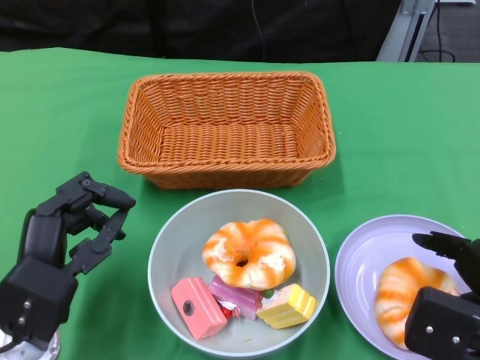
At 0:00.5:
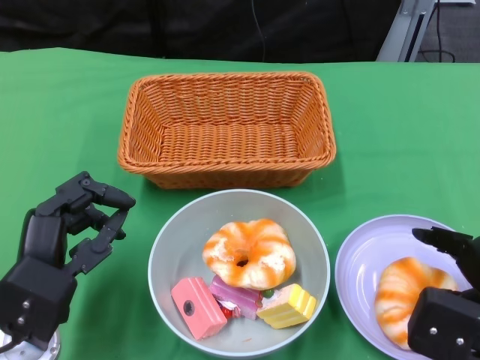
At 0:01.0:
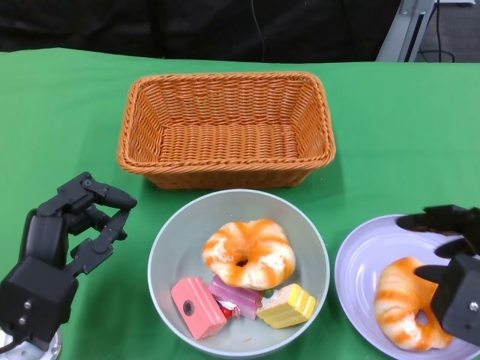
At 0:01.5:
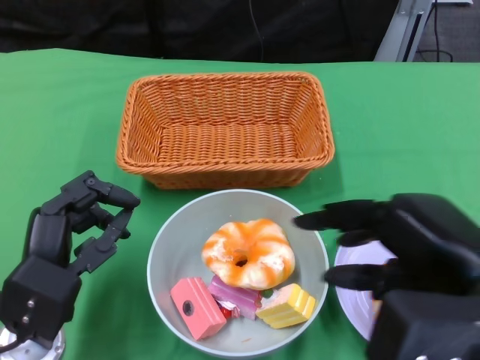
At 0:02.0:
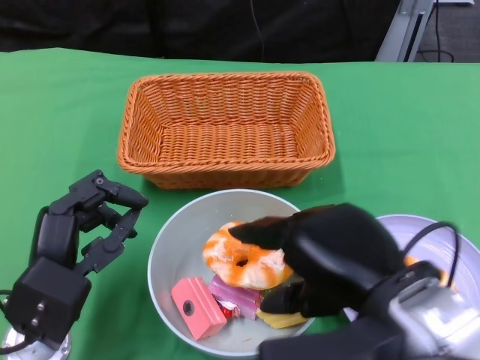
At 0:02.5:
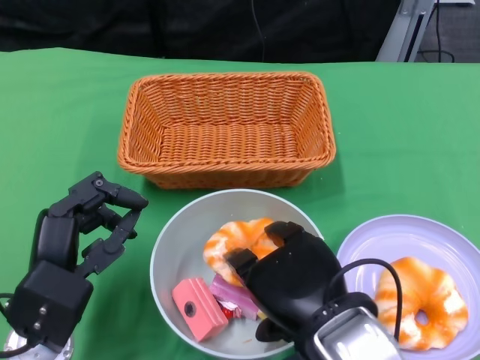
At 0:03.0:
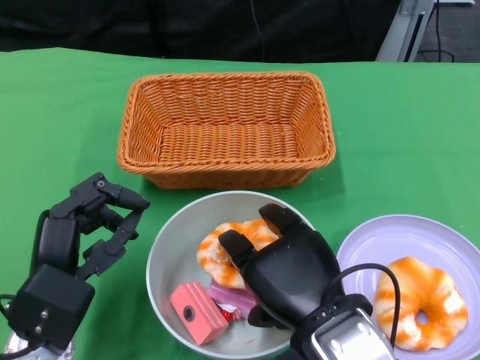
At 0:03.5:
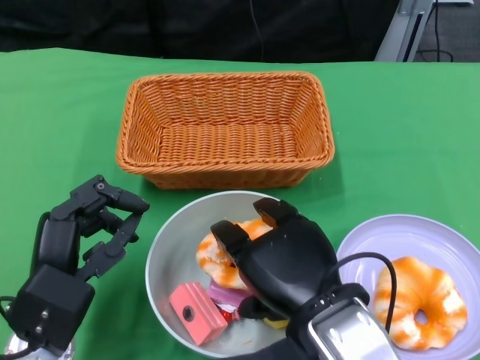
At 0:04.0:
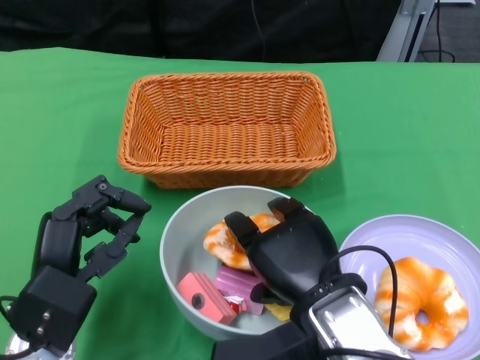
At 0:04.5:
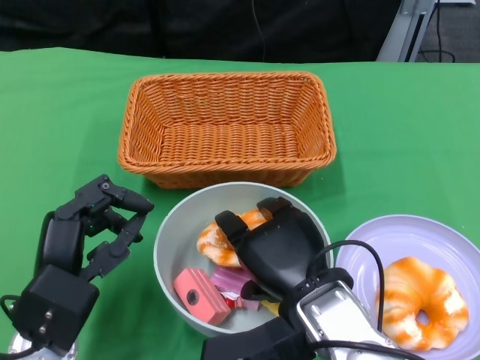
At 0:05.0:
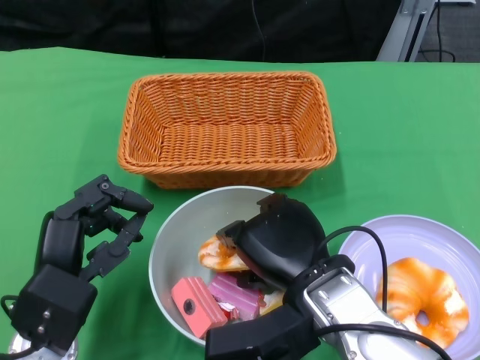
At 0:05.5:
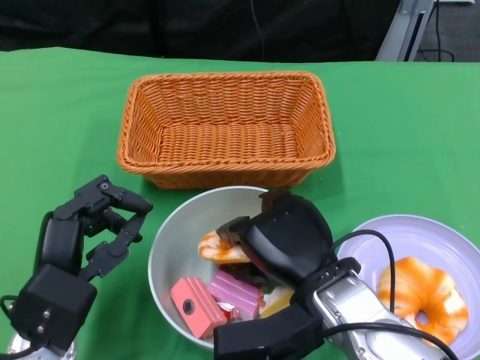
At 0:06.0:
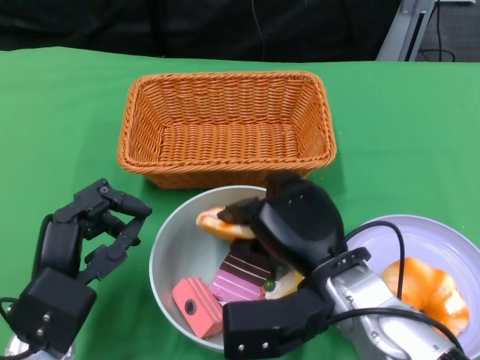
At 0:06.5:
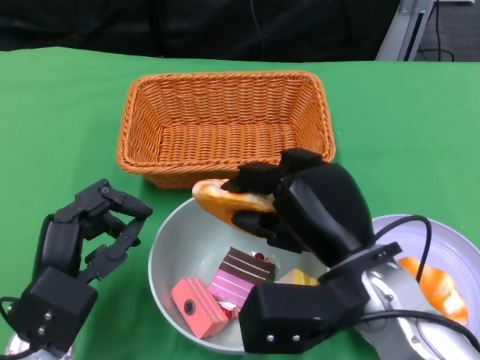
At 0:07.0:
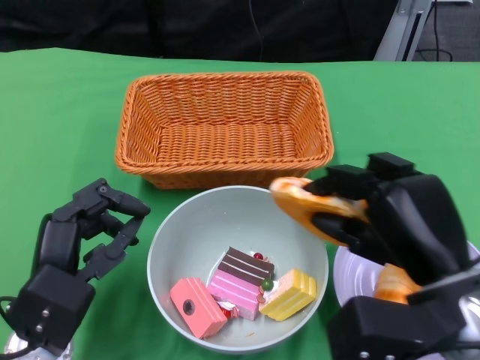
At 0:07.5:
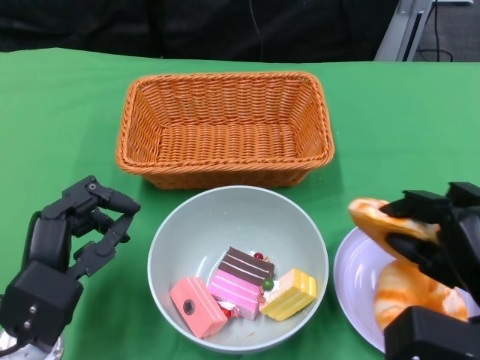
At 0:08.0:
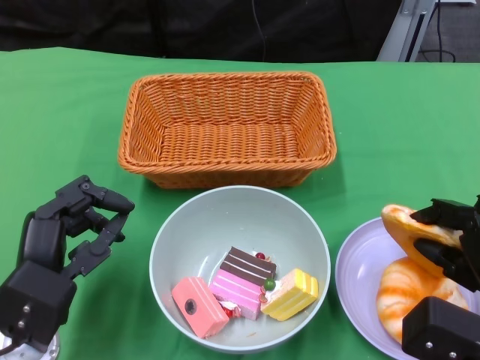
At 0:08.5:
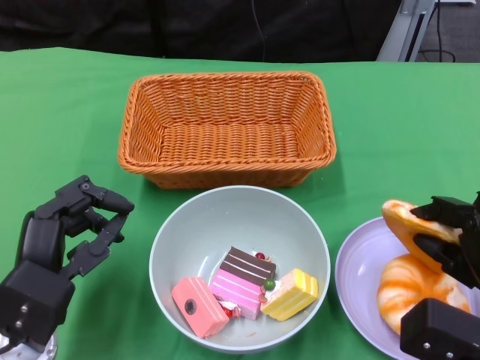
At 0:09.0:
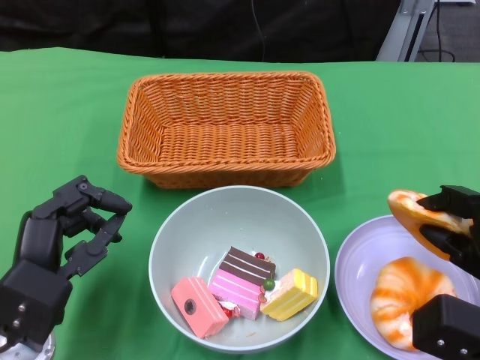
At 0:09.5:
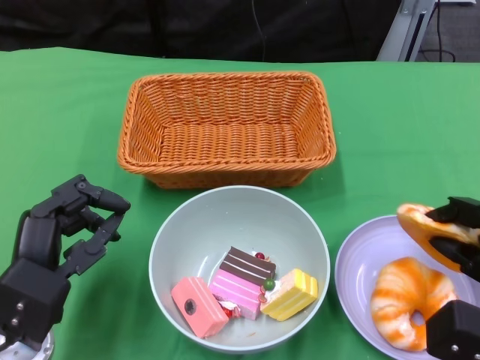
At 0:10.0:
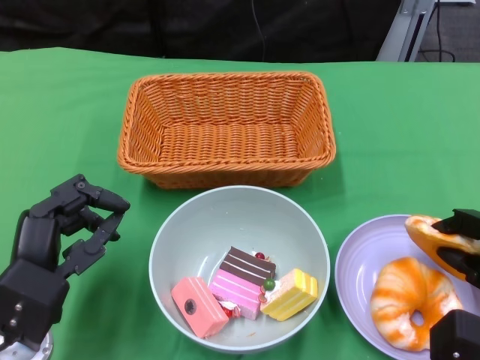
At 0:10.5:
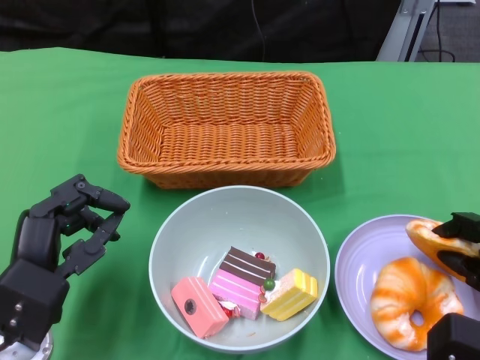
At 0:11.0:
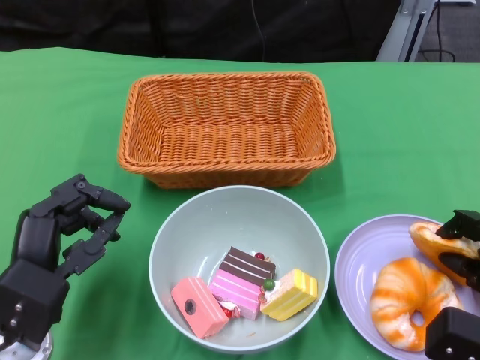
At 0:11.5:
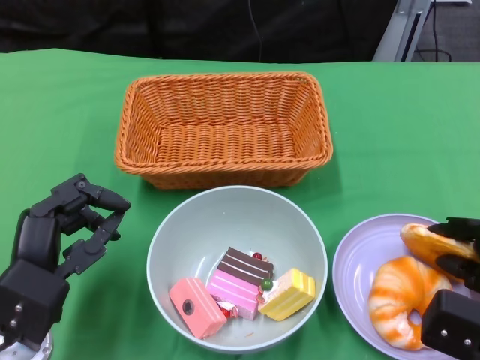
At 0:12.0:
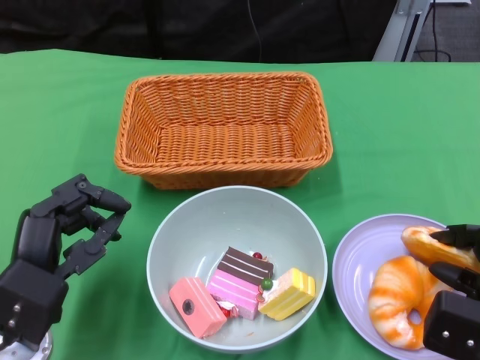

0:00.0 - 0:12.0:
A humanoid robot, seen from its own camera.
0:00.0 - 0:02.0: The right hand moves to the left and upward, approximately 15 cm.
0:02.0 - 0:04.0: The right hand goes about 10 cm downward and to the left.
0:06.0 - 0:08.0: The right hand is displaced to the right by roughly 15 cm.
0:08.0 - 0:12.0: The hands stay close to where they were, moving slightly.

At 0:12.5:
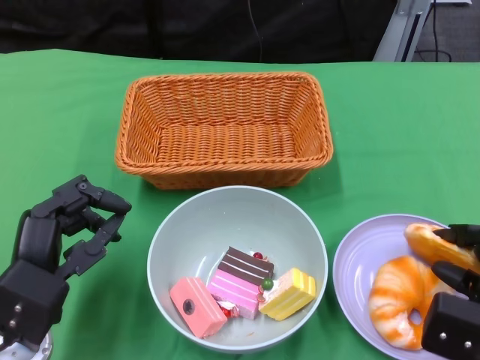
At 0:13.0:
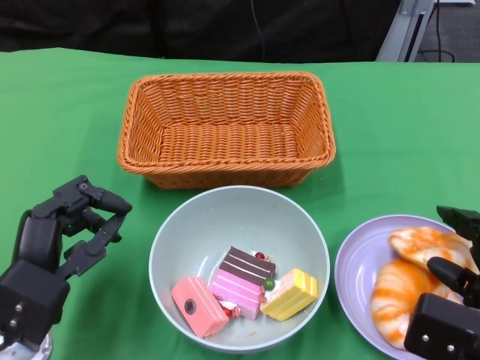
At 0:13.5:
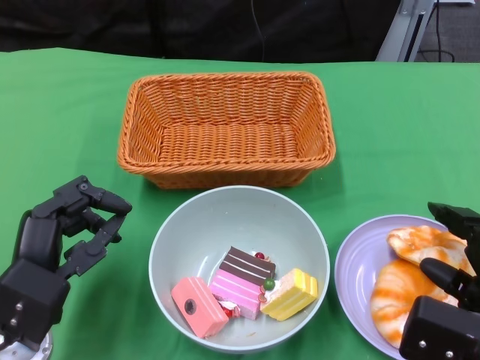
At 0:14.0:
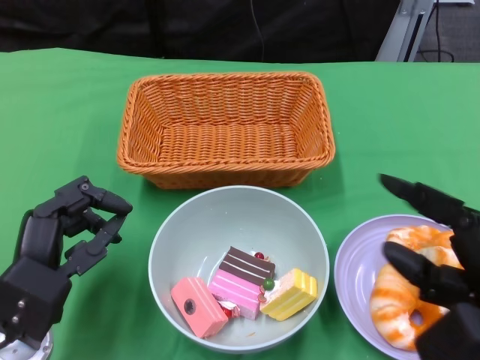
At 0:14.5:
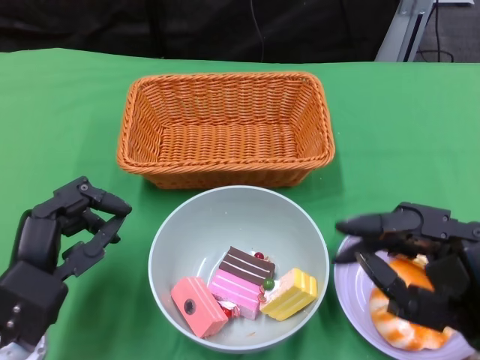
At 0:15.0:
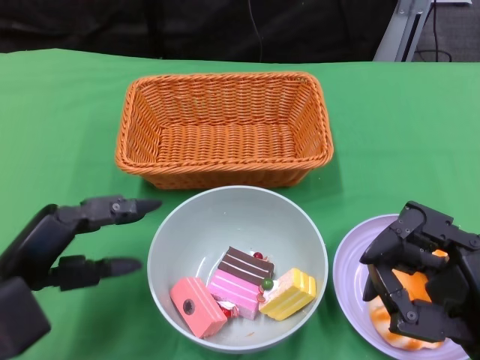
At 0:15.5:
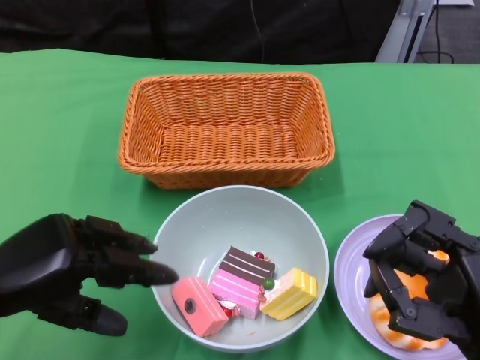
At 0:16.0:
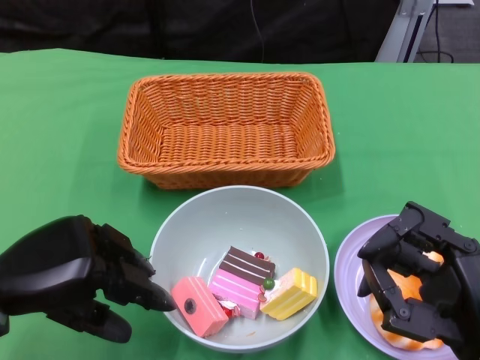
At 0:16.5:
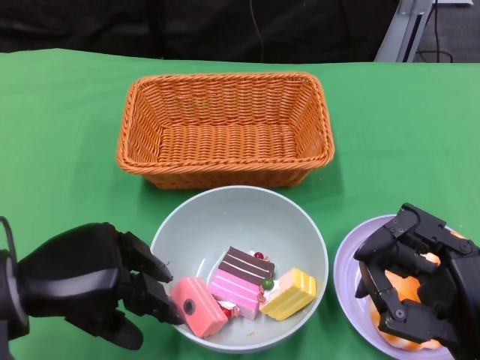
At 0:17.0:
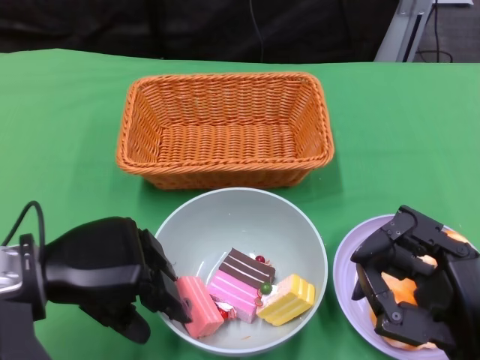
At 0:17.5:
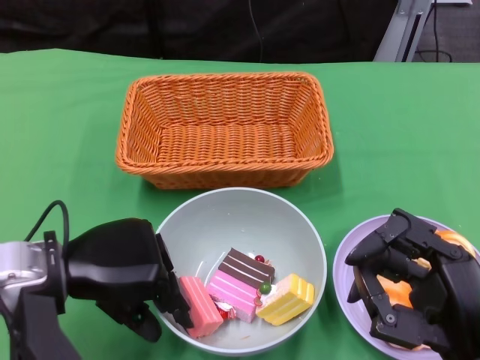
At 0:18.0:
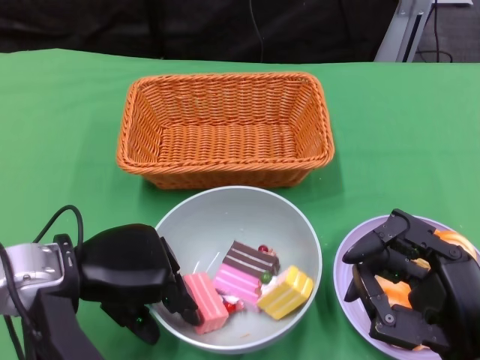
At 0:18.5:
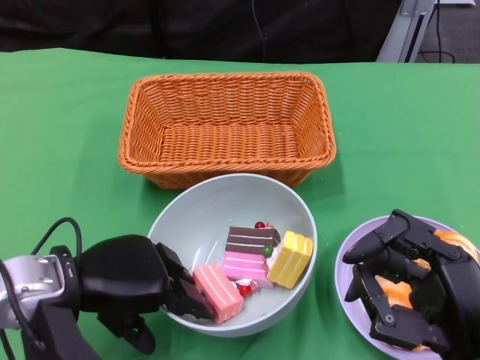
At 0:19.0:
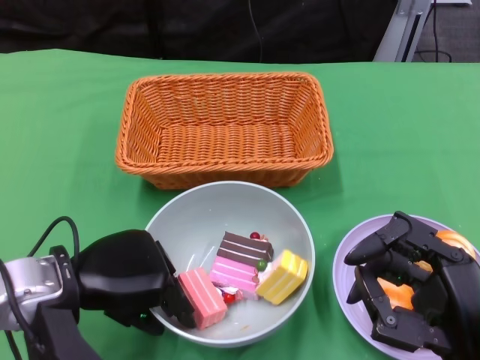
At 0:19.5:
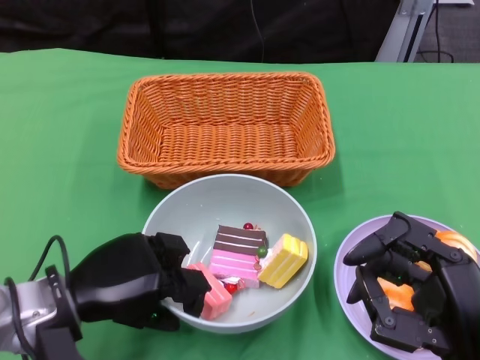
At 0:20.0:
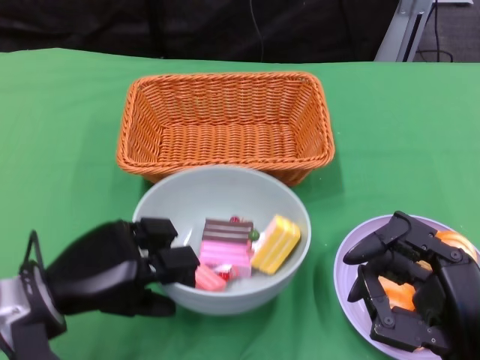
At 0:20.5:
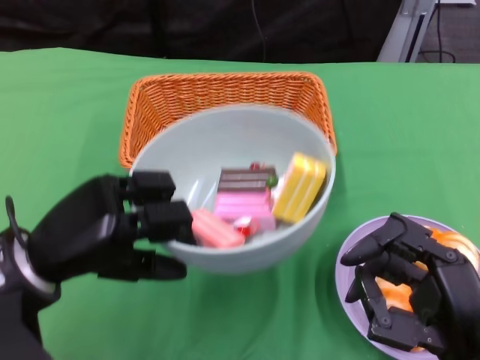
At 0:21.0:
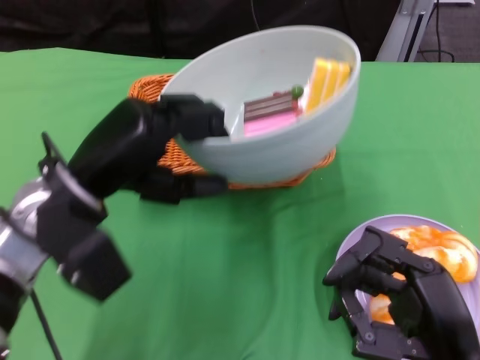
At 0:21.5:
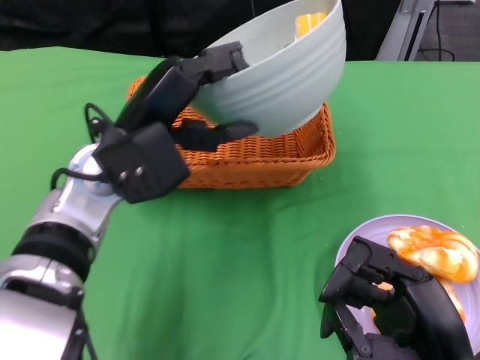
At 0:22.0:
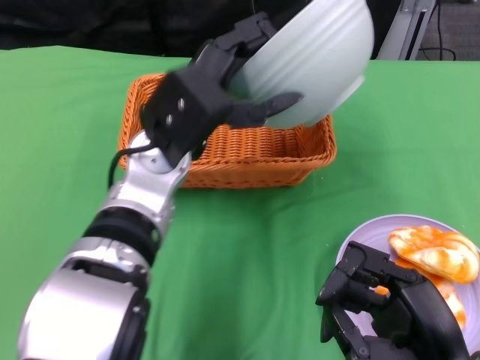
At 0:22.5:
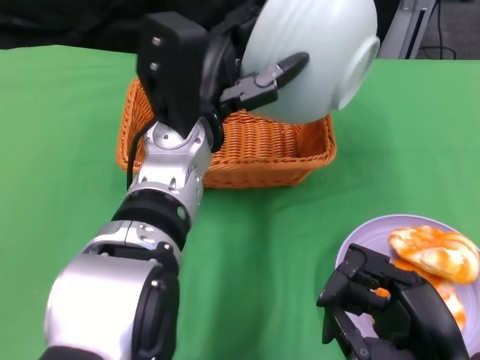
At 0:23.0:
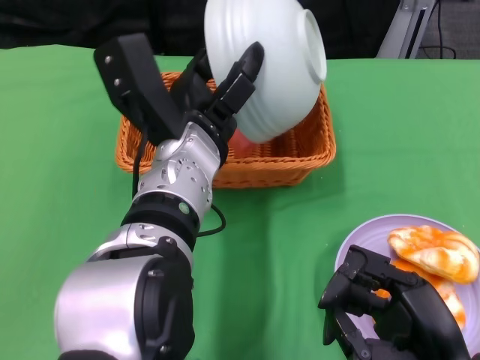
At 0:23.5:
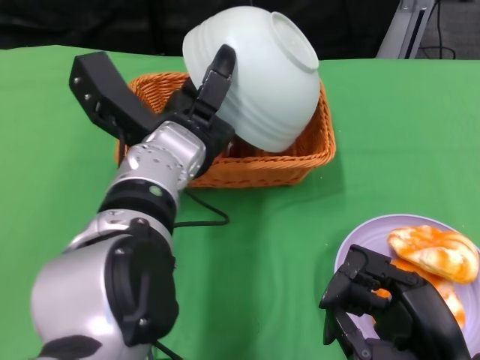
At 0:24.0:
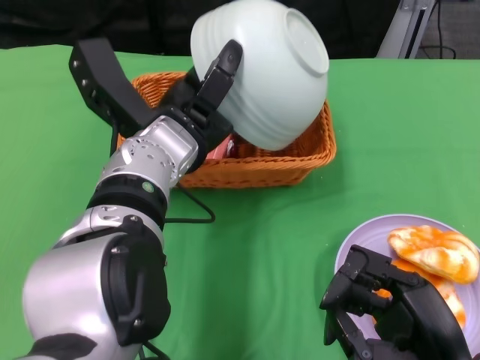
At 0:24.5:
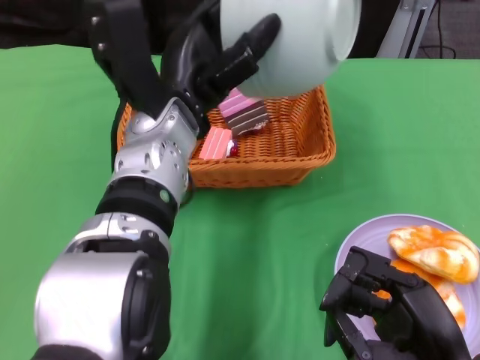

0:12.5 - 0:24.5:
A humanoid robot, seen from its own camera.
Step, 0:14.5 - 0:18.5: Grasp the bowl with the left gripper.
Step, 0:19.0 - 0:24.0: Pour the cake into the basket with the left gripper.
0:12.5 - 0:14.5: The right hand is displaced to the left and upward by roughly 10 cm.
0:14.5 - 0:16.5: The left hand is displaced upward by about 5 cm.
0:20.5 - 0:22.5: The left hand goes approximately 20 cm to the right and forward.

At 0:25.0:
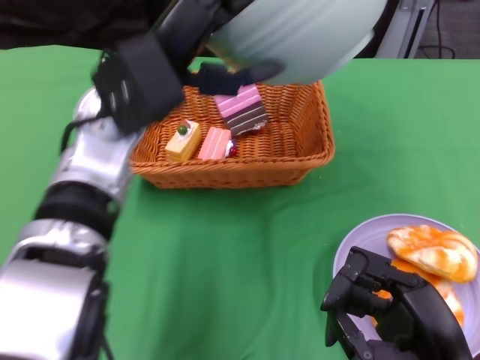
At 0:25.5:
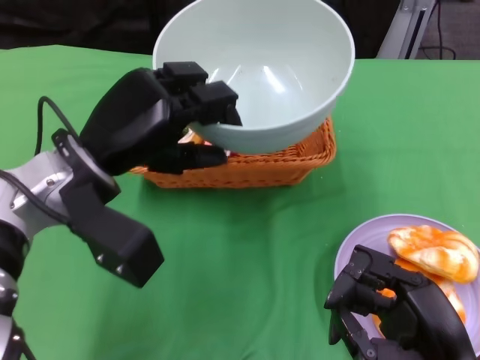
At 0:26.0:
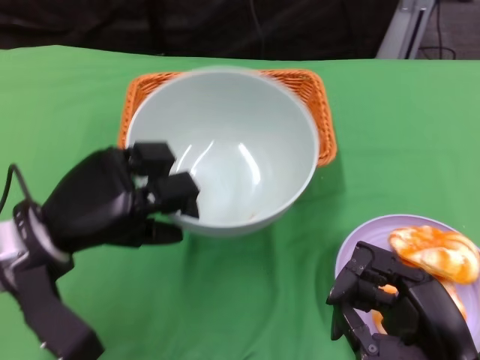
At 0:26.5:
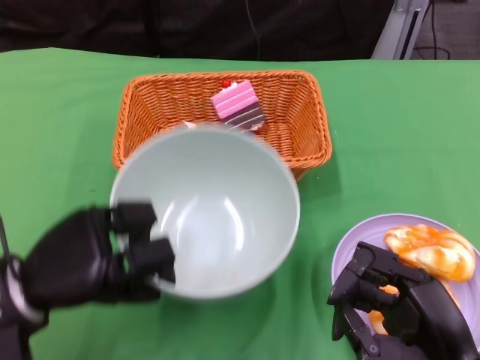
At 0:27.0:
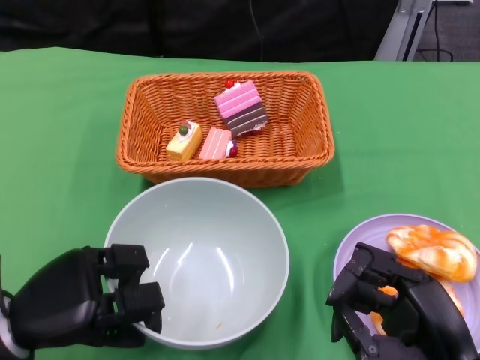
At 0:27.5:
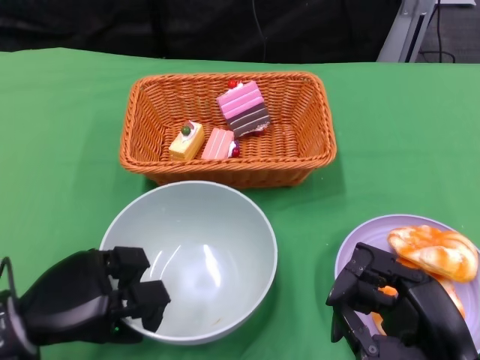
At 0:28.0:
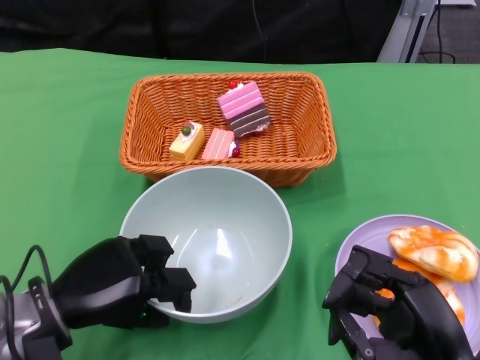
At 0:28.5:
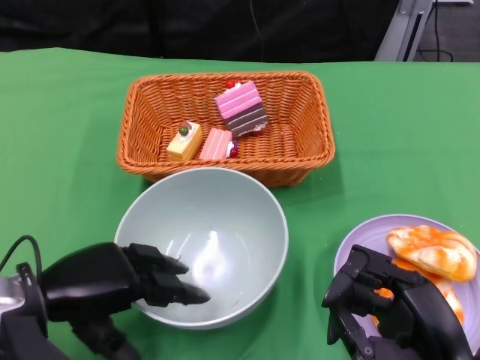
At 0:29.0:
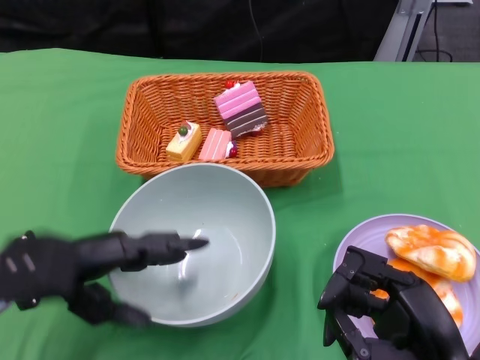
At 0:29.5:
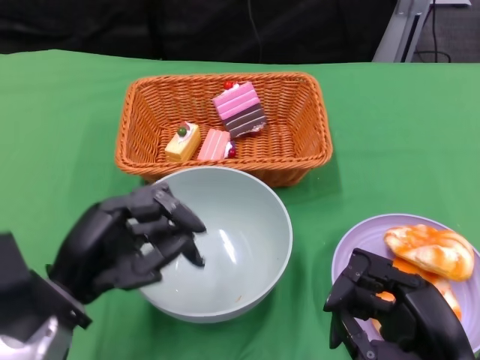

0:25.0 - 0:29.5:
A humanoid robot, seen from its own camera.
Step, 0:25.0 - 0:28.5: Place the bowl on the table with the left gripper.
0:25.0 - 0:27.0: The left hand moves downward, to the left and backward, about 25 cm.
0:27.0 - 0:29.5: The left hand ends up roughly 5 cm from where it was.
